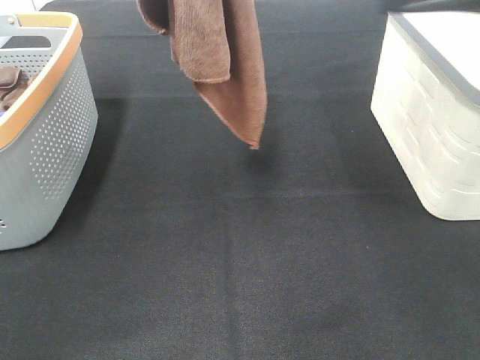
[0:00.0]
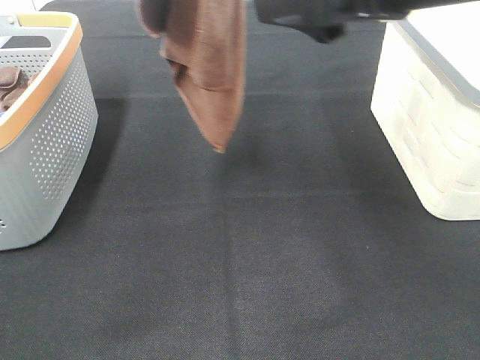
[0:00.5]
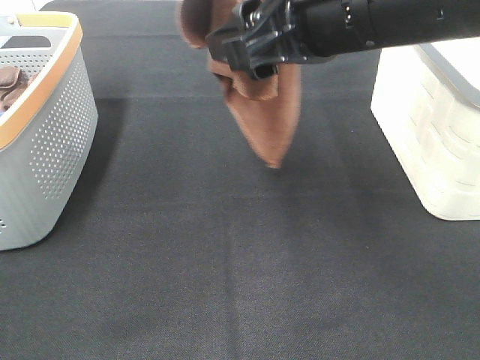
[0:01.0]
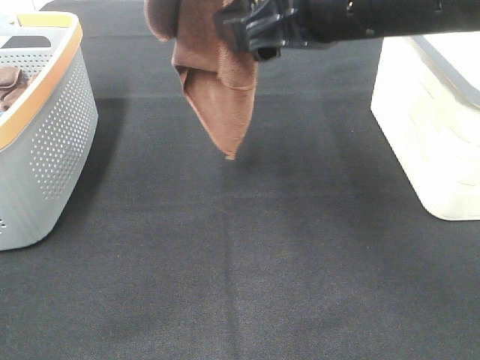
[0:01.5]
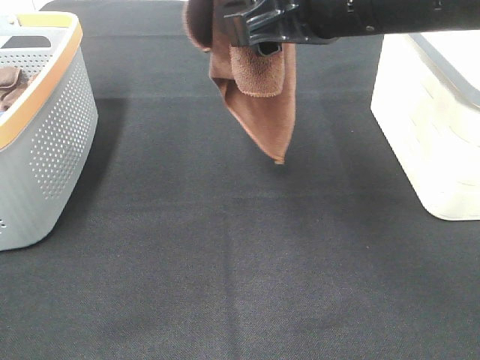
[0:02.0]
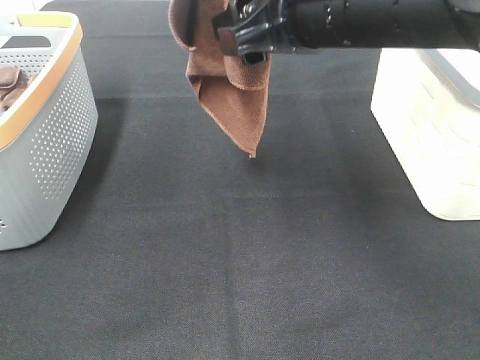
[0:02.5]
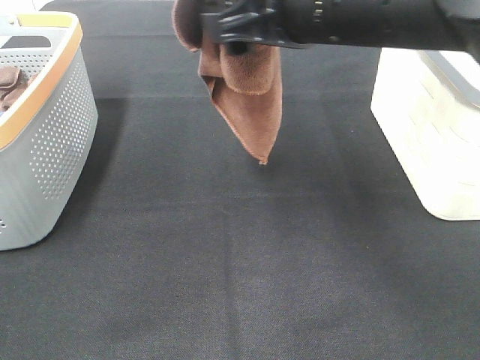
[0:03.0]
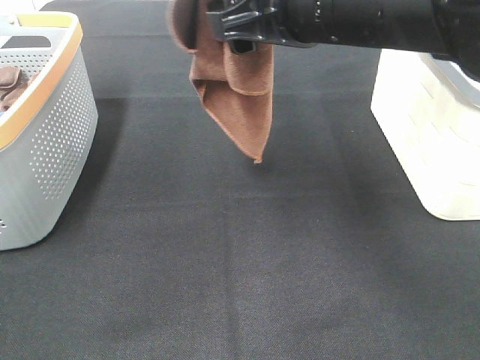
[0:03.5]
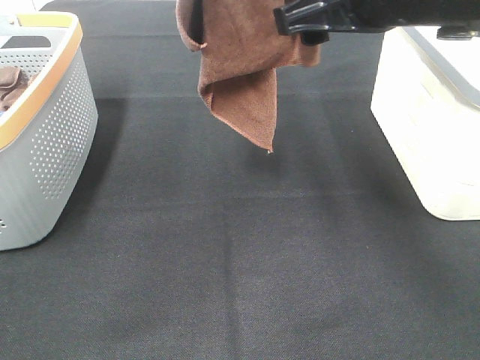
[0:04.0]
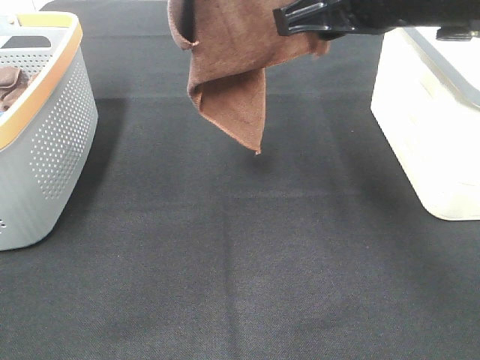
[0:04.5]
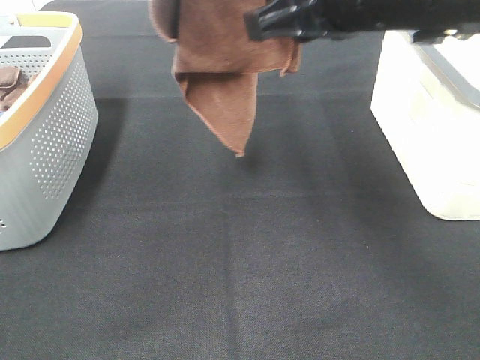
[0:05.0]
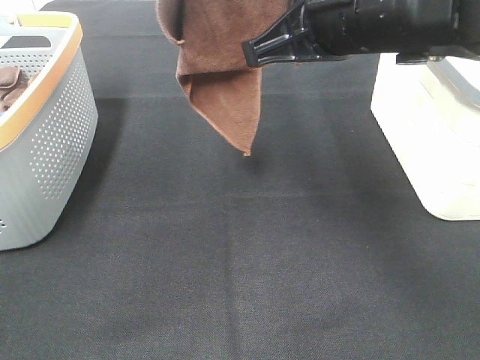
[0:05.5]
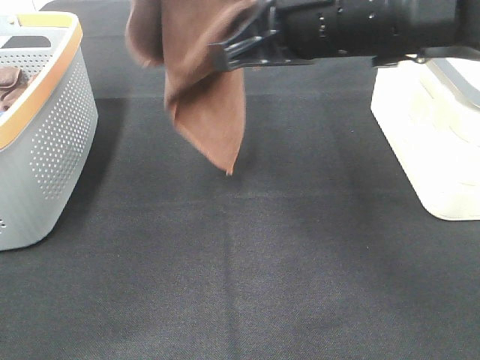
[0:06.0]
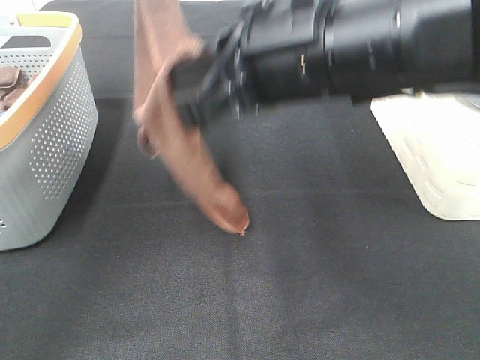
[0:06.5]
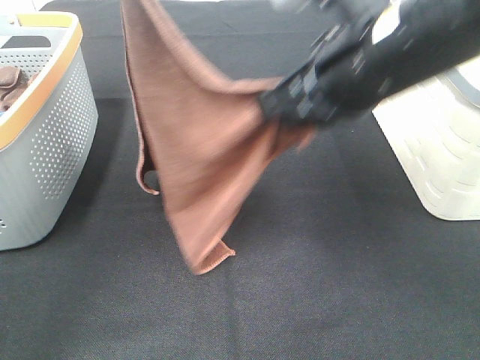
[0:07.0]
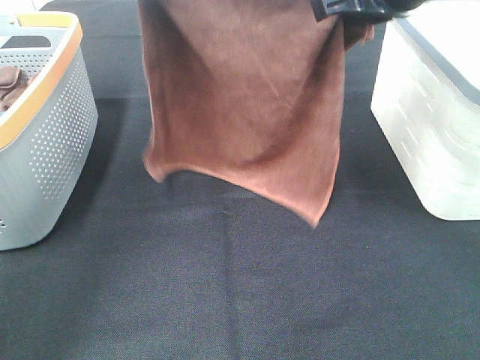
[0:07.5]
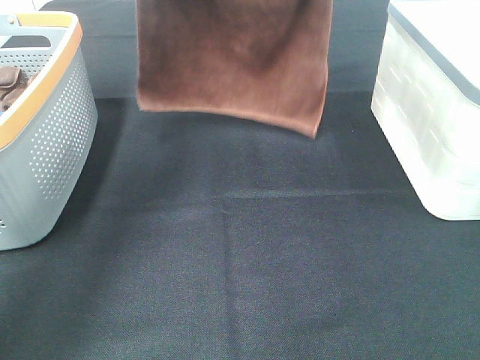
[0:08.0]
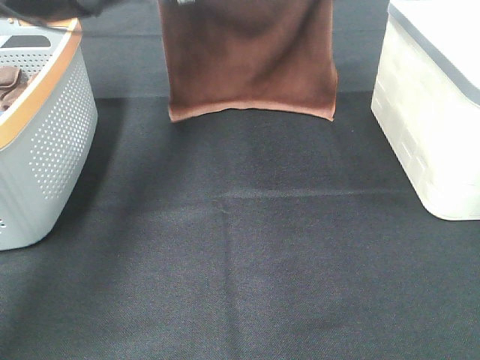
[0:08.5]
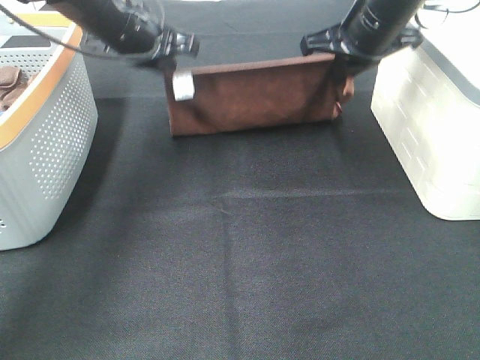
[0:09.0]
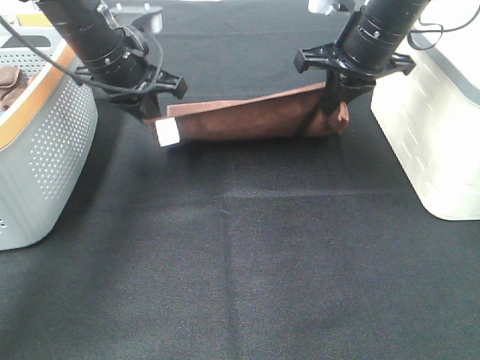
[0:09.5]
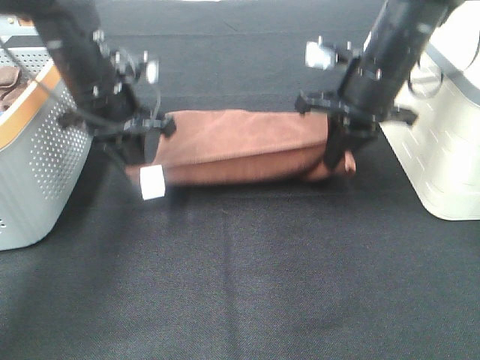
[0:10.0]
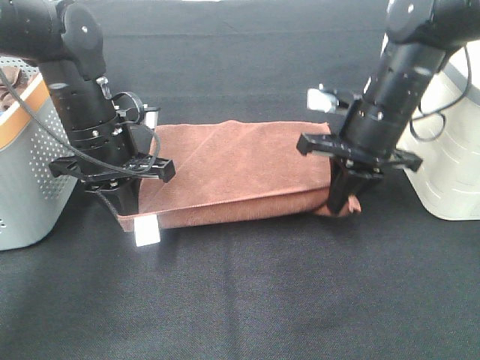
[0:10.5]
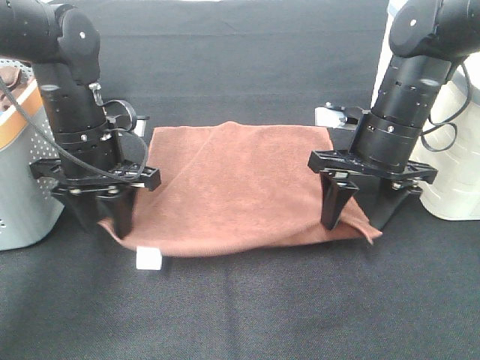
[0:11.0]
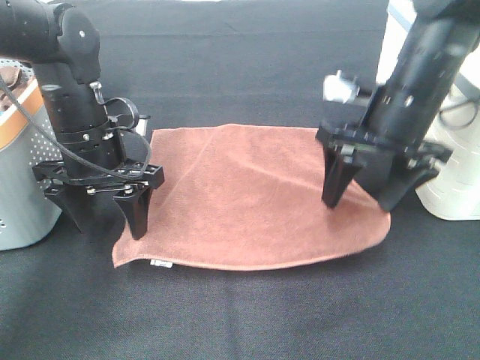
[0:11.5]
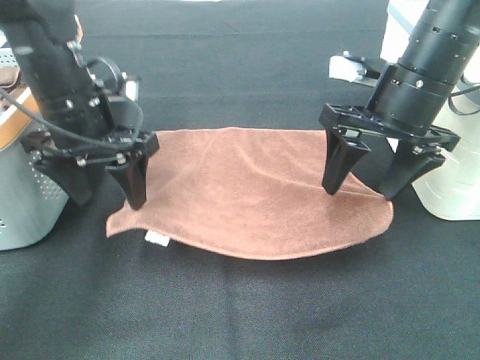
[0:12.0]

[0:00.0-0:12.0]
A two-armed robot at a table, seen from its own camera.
Task of the whole recording: Remove the towel and place it.
Step, 0:00.0 to 0:03.5: Right hand: grab a corner of the brown towel and straighten it.
Step, 0:04.0 to 0:06.0: Left hand: spread the brown towel flat on the table.
Step, 0:04.0 to 0:06.0: Right hand: spread the brown towel flat on the table.
0:00.0 to 0:02.0: The left gripper ends up some 5 cm from where it was. Meanwhile the right gripper shifts some 10 cm to the left and forward.
0:04.0 to 0:06.0: The left gripper changes place by roughly 5 cm. Meanwhile the right gripper closes its fingers.
0:06.0 to 0:08.0: The left gripper goes approximately 20 cm downward and forward. Meanwhile the right gripper moves forward, roughly 20 cm.
0:08.0 to 0:10.0: The right gripper is displaced downward by some 15 cm. Meanwhile the left gripper shifts about 20 cm downward and backward.
0:10.0 to 0:12.0: The right gripper travels backward by some 5 cm, and opens up, while the left gripper opens up.

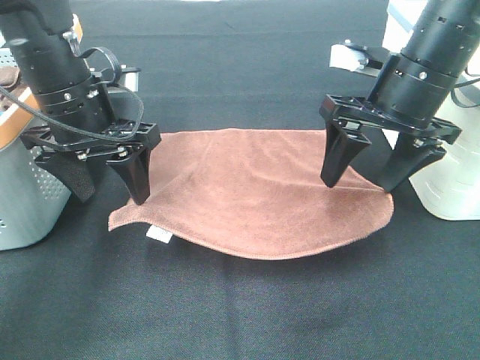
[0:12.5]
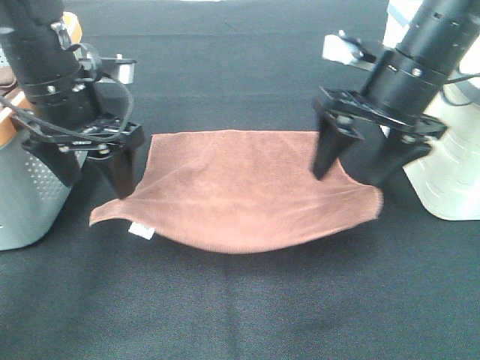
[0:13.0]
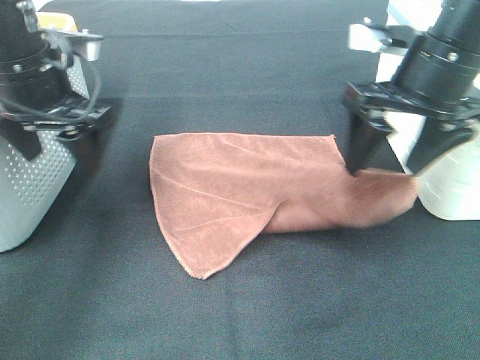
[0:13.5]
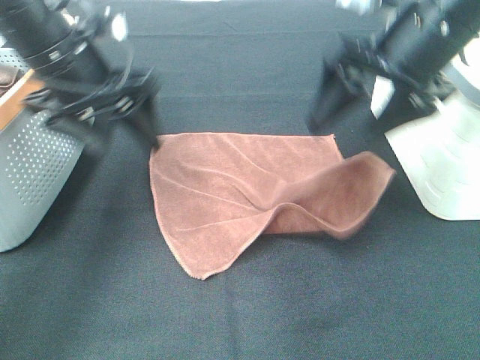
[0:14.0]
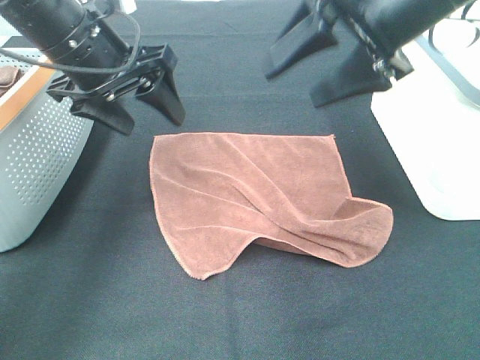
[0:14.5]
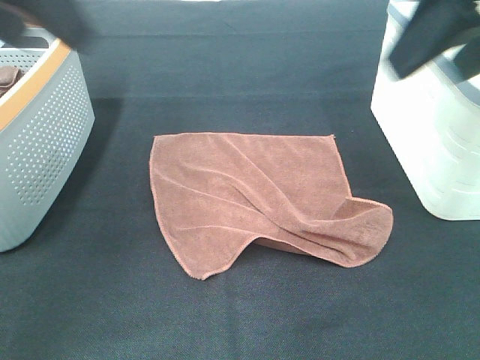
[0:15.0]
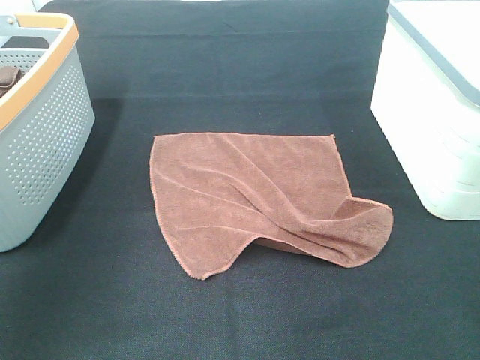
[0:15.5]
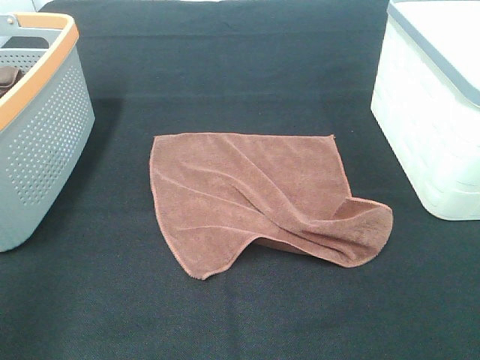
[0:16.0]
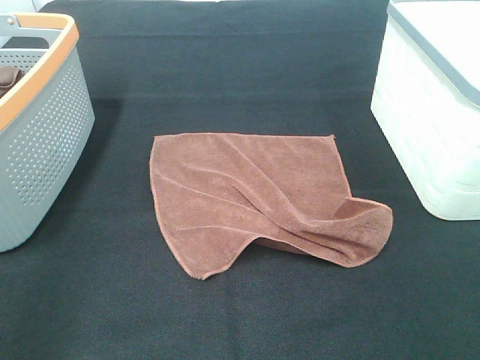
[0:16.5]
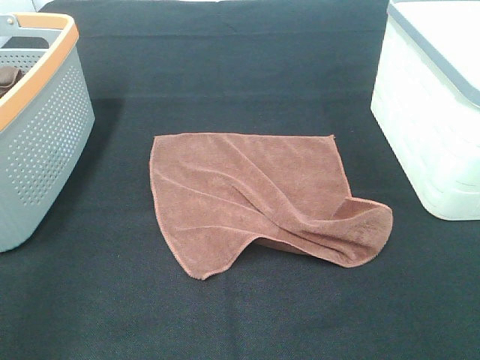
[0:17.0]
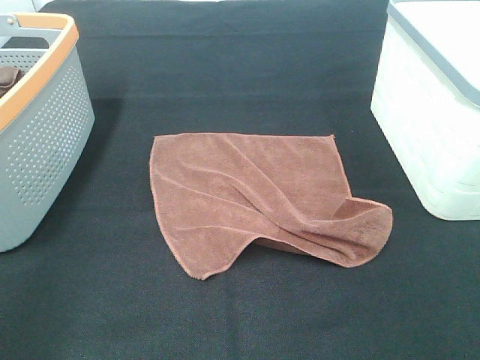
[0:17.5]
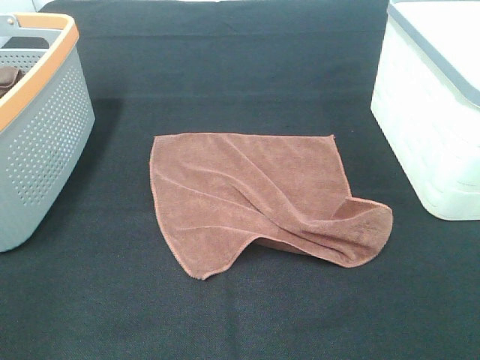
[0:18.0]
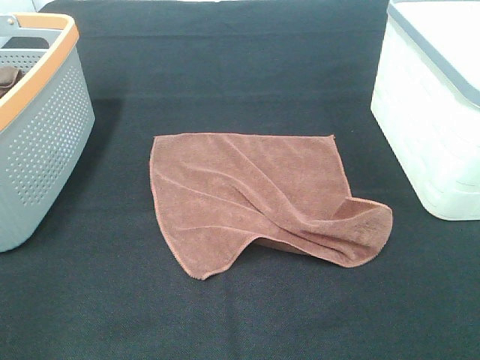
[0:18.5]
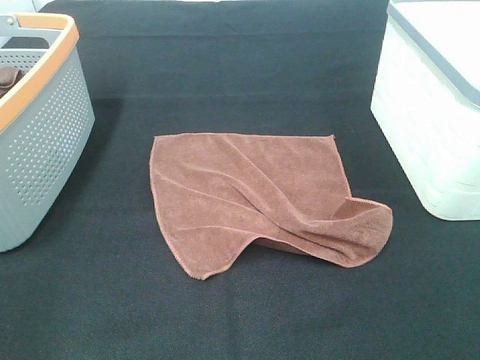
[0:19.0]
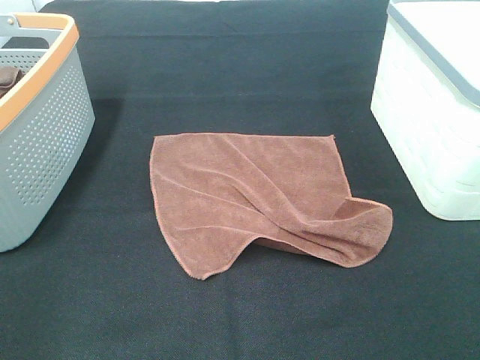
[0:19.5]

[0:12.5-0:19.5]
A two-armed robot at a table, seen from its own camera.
Task of the whole recording: Remove the towel and place it.
0:12.5 to 0:14.5: The left gripper moves upward, some 5 cm. Meanwhile the right gripper is displaced upward by roughly 10 cm.
0:14.5 to 0:16.0: The left gripper heads backward and to the left, covering roughly 30 cm, while the right gripper travels backward and to the right by about 30 cm.

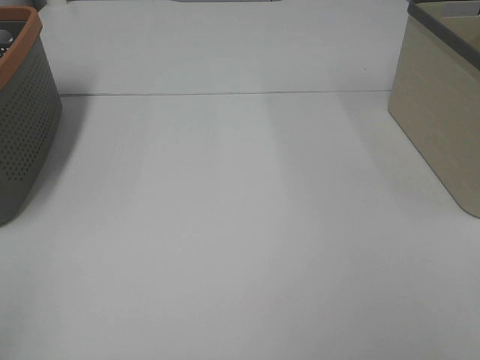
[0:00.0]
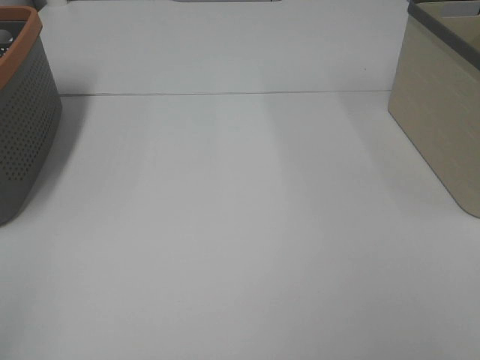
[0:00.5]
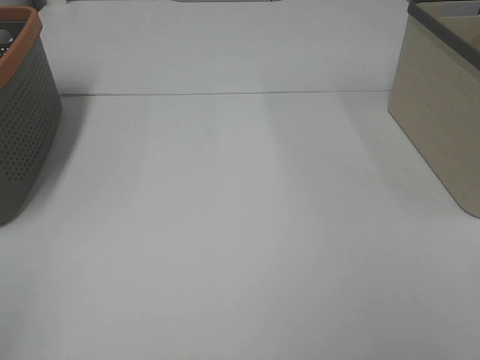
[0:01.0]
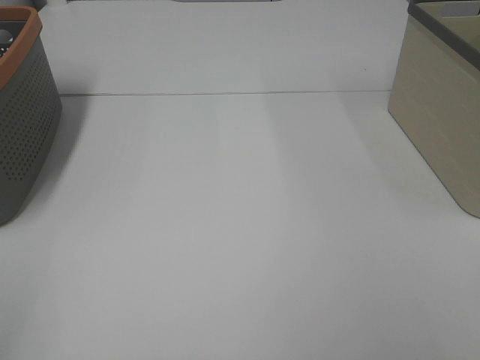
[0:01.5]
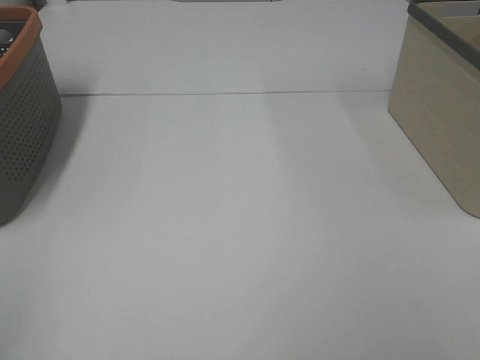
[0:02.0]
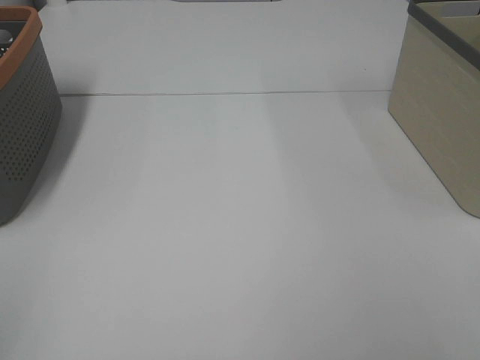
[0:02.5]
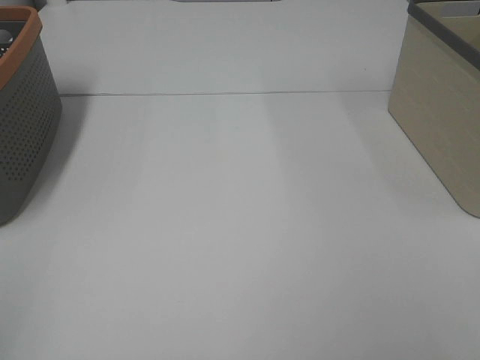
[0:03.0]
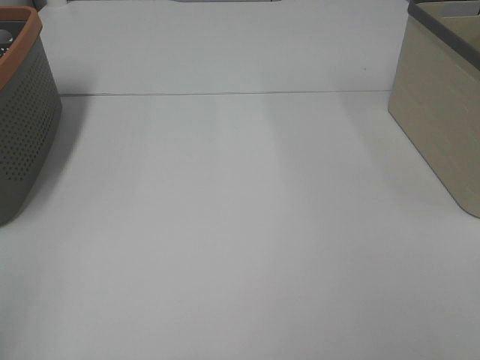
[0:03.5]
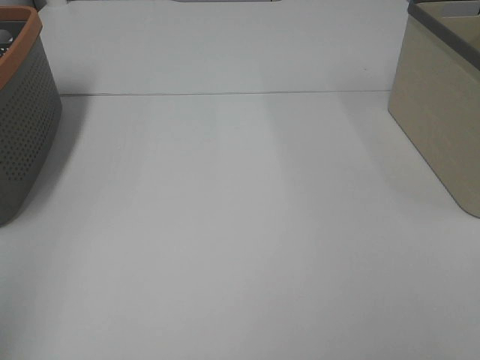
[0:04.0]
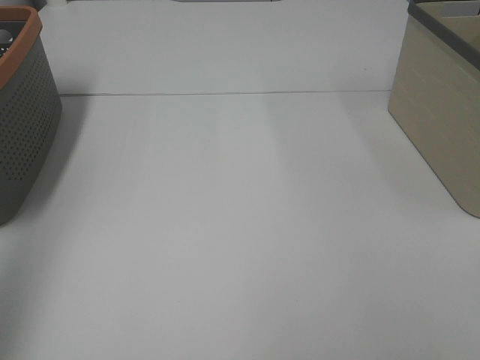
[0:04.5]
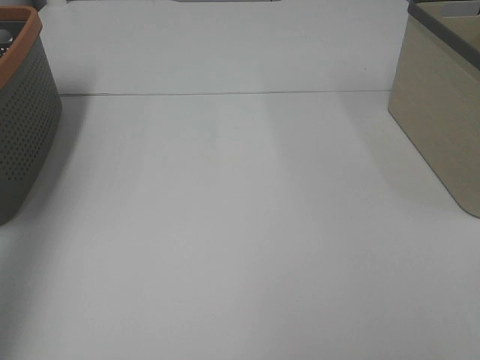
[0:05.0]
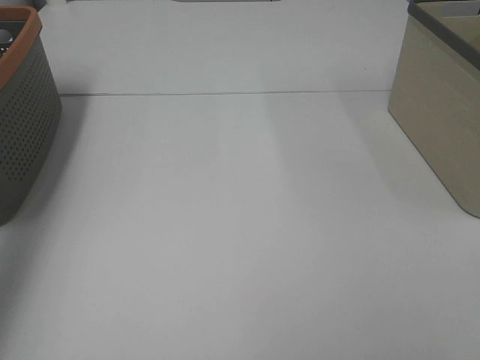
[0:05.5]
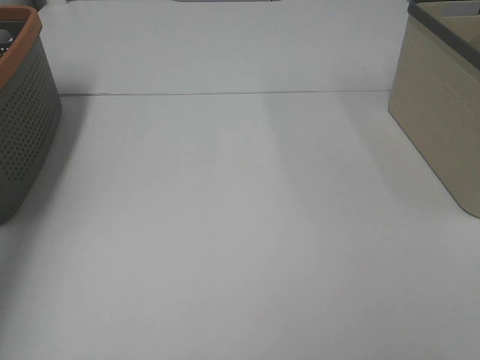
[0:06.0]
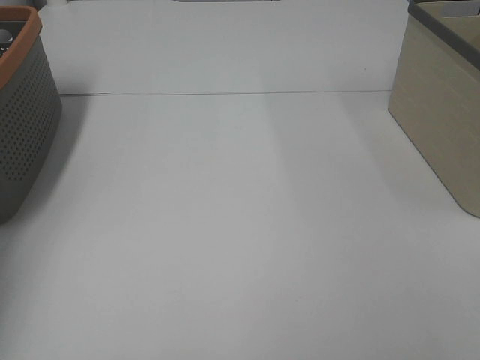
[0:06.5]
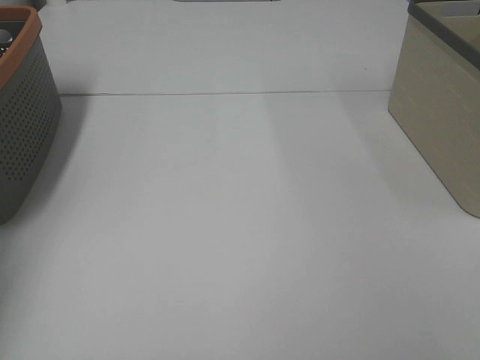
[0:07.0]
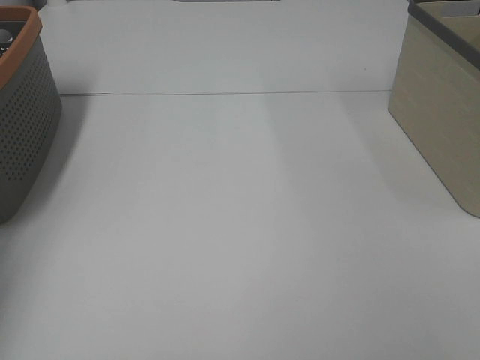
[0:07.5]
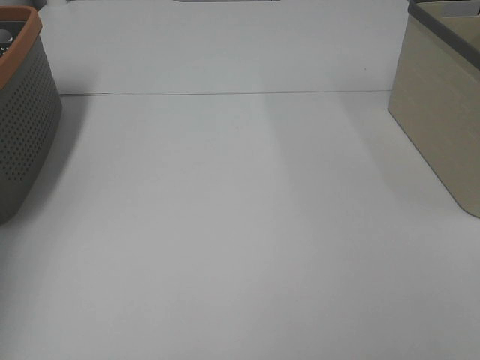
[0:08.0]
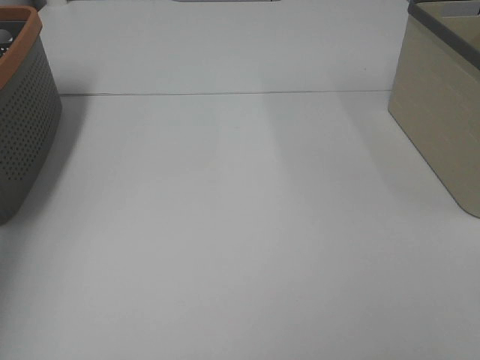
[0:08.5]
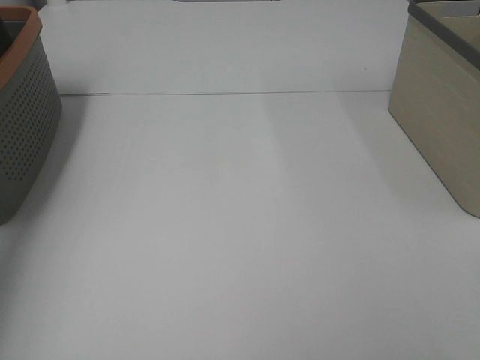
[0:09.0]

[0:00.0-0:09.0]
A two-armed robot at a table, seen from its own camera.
Task of the whole recording: Remove the towel and place it.
0:00.0 to 0:02.0: Both grippers stay about where they are.
0:02.0 to 0:04.5: The left gripper shifts about 20 cm forward and upward.
